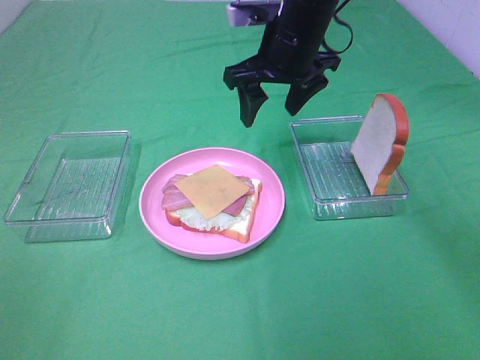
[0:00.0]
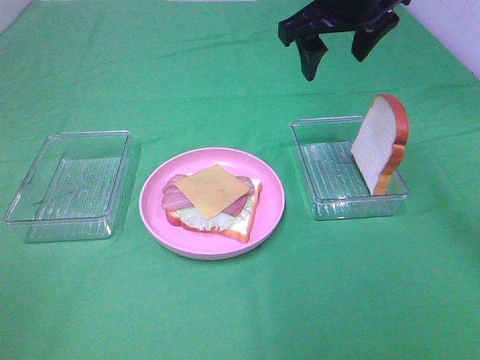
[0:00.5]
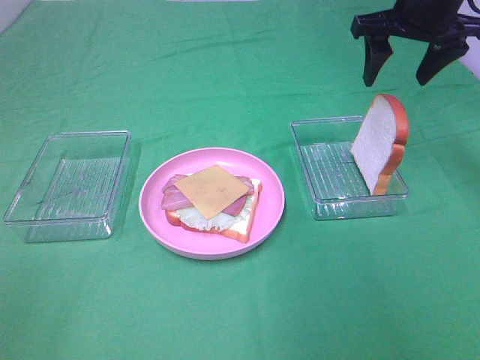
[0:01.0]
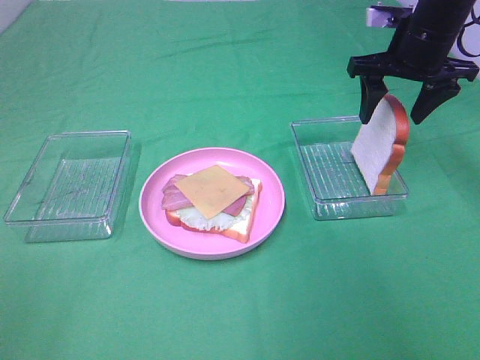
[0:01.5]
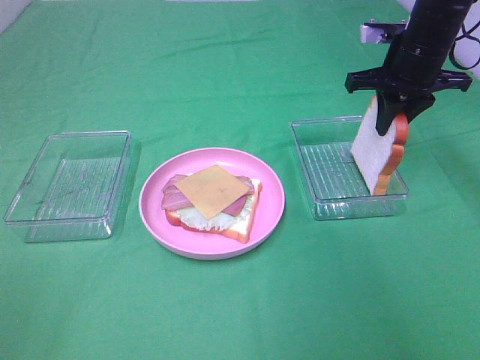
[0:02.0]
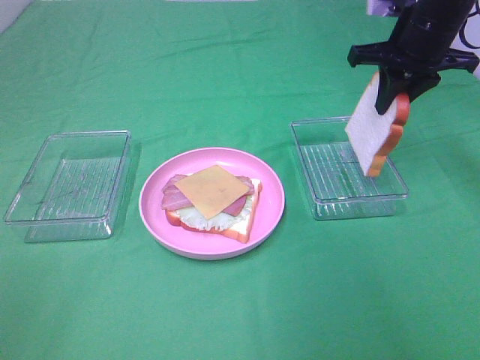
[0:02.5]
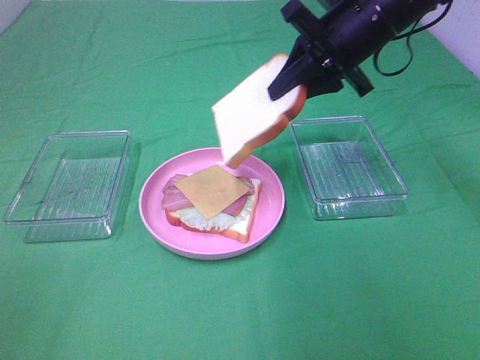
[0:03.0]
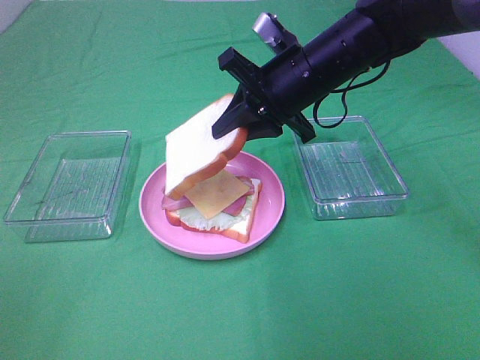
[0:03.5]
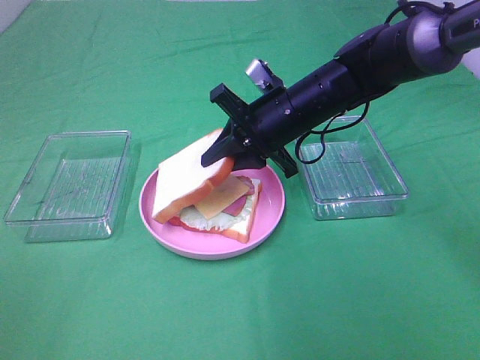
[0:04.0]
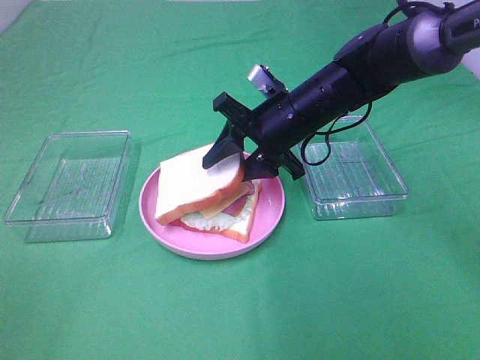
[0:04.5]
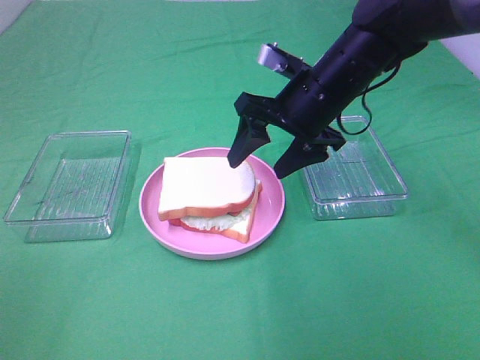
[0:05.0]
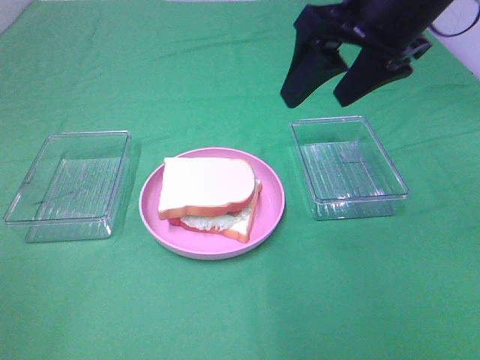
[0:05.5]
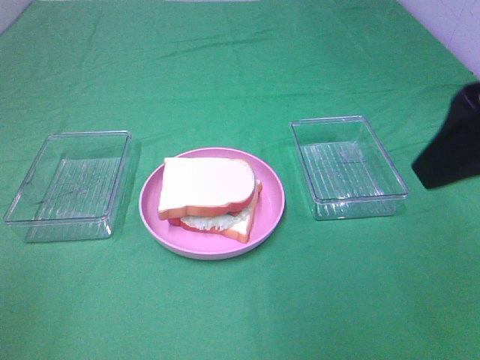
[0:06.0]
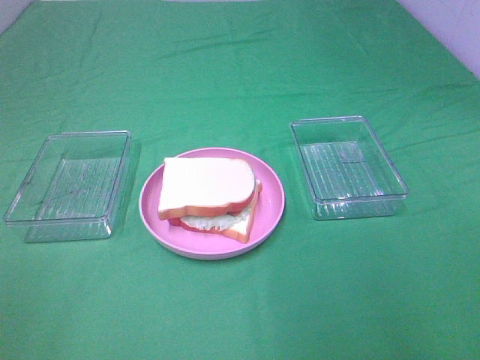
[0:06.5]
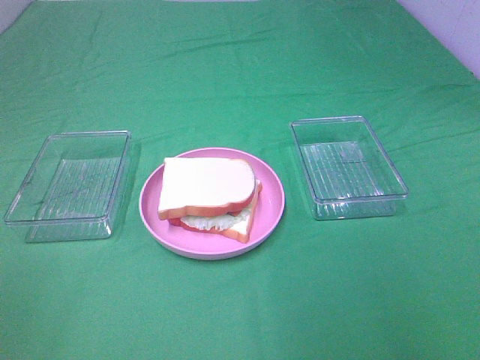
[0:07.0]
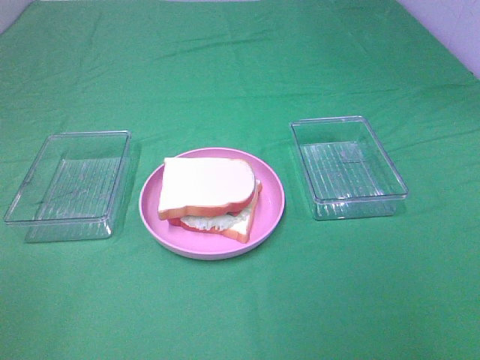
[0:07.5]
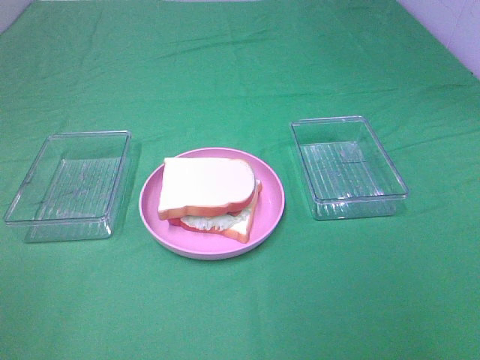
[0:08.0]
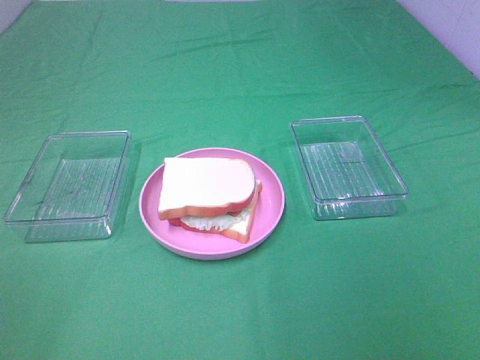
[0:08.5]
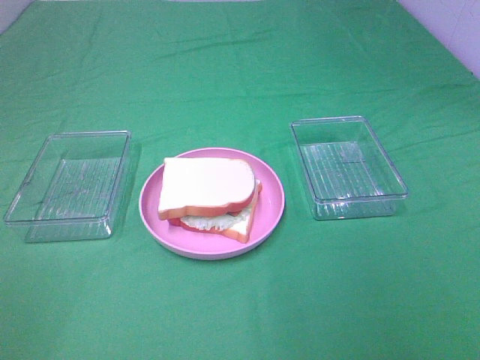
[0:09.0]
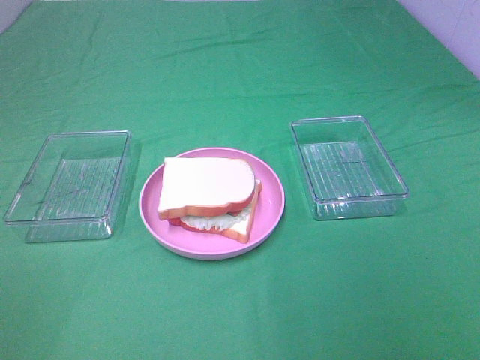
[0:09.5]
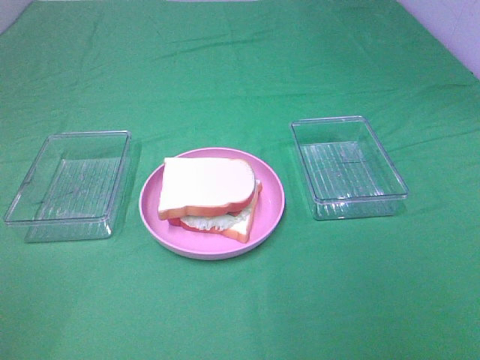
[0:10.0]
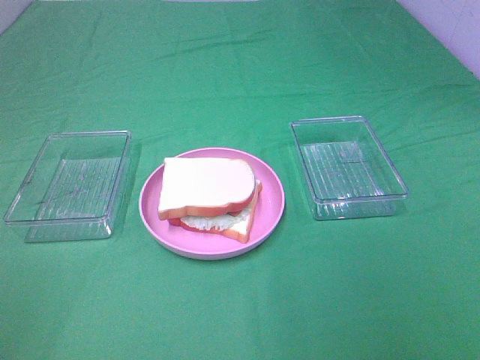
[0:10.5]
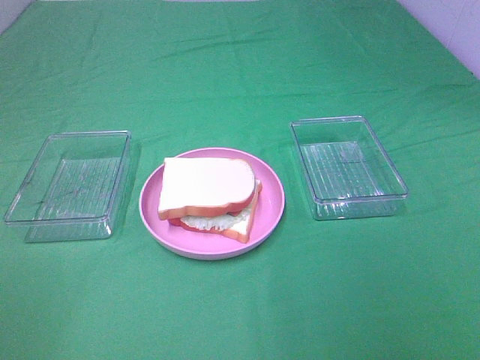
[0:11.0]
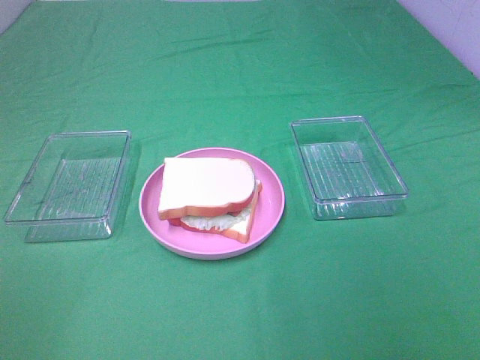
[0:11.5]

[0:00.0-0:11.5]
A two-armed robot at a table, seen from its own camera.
Task of the whole recording: Make sandwiches.
Step, 0:00.0 to 0:02.0: Right hand:grab the bread slice.
Step, 0:02.5 to 0:05.0: Right hand:place the bread slice on the cheese slice.
0:00.0 to 0:02.0: The right gripper moves to the right, approximately 15 cm, and closes up.
0:02.0 to 0:04.0: The right gripper travels to the left, downward and backward by some 15 cm.
0:04.0 to 0:06.0: The right gripper travels backward, upward and to the right by approximately 30 cm, and opens its fingers.
0:06.0 to 0:07.5: The right gripper heads backward and to the right, covering some 15 cm.
0:09.5 to 0:11.5: Both grippers stay about where they are.

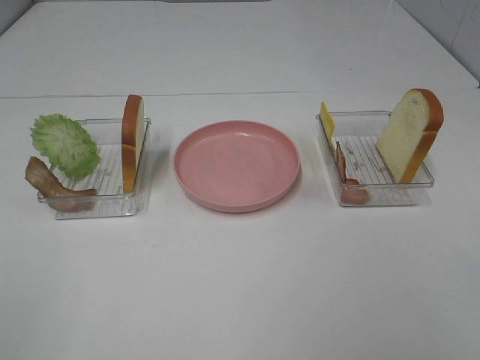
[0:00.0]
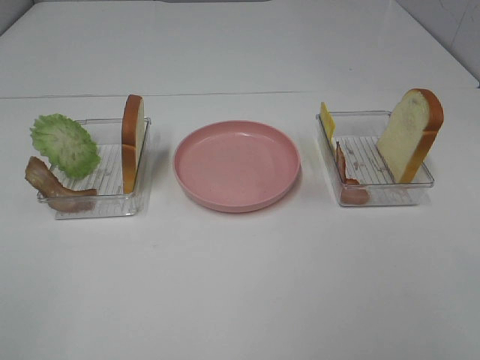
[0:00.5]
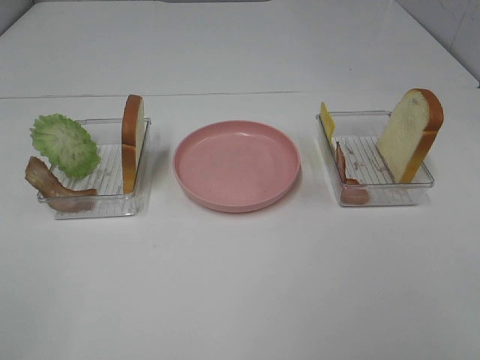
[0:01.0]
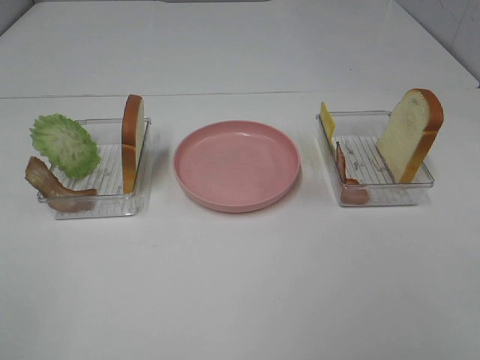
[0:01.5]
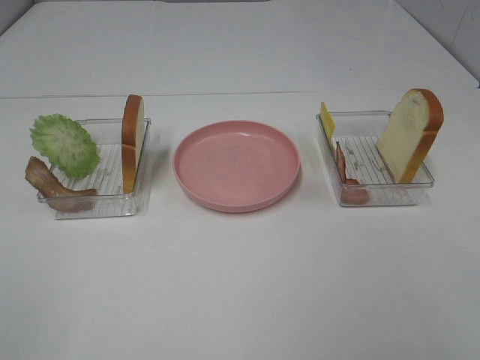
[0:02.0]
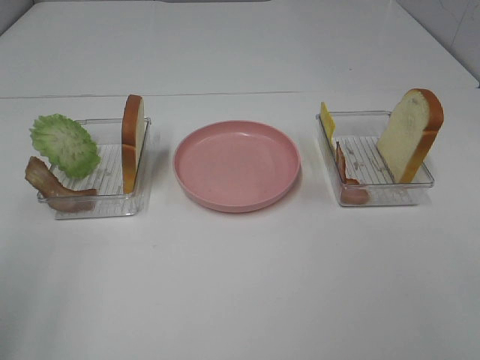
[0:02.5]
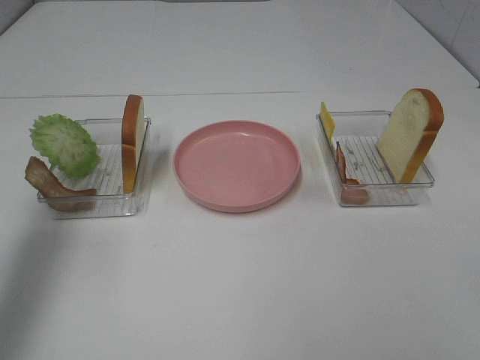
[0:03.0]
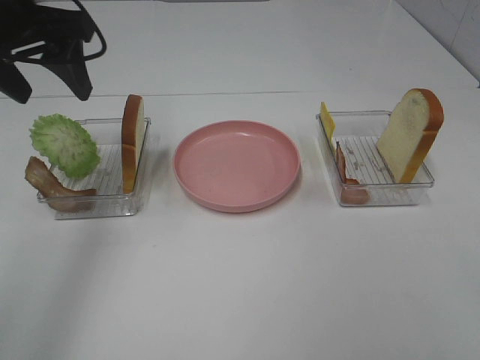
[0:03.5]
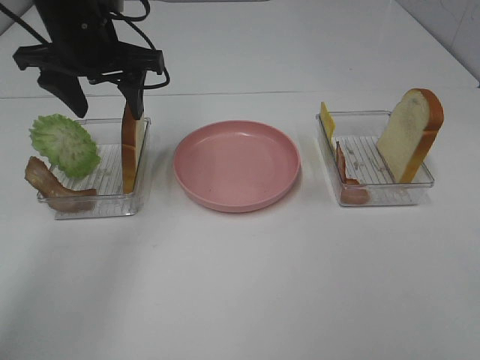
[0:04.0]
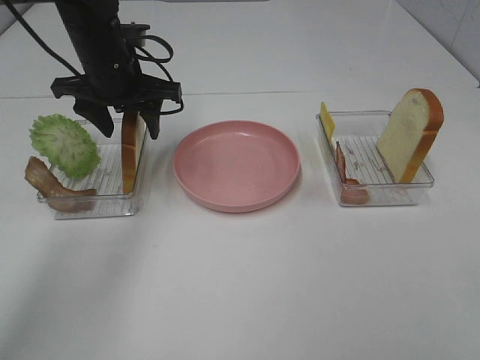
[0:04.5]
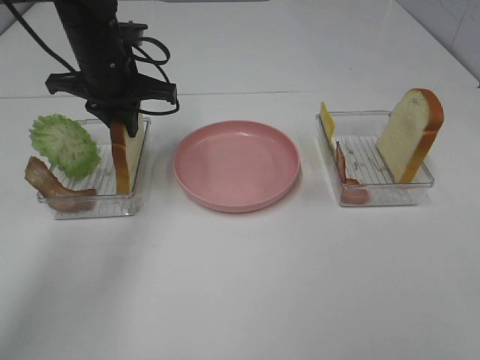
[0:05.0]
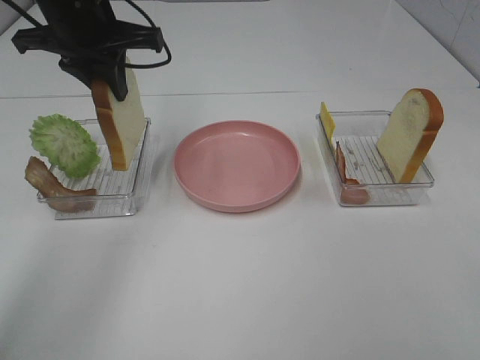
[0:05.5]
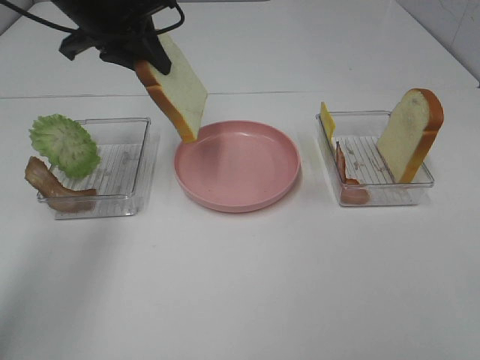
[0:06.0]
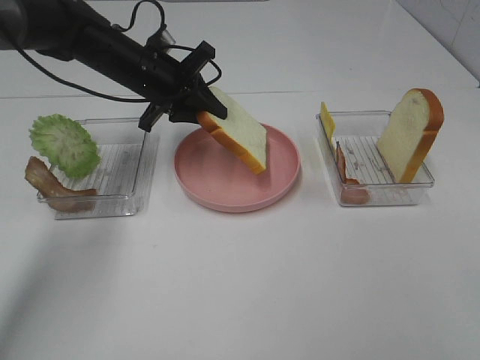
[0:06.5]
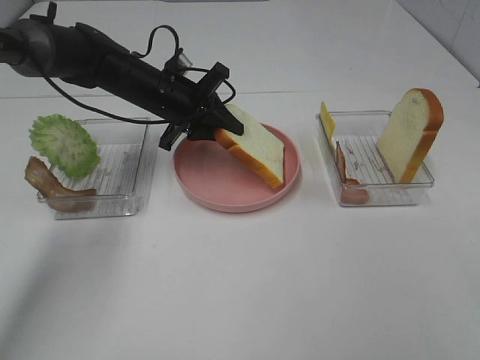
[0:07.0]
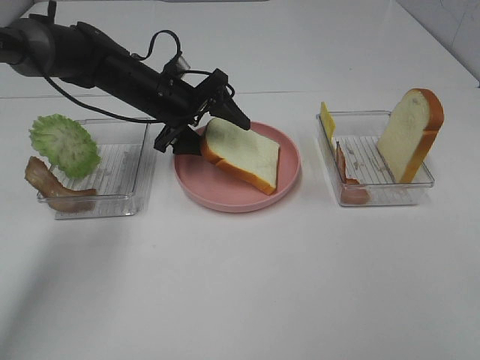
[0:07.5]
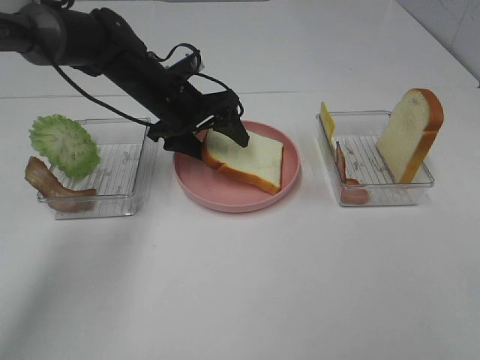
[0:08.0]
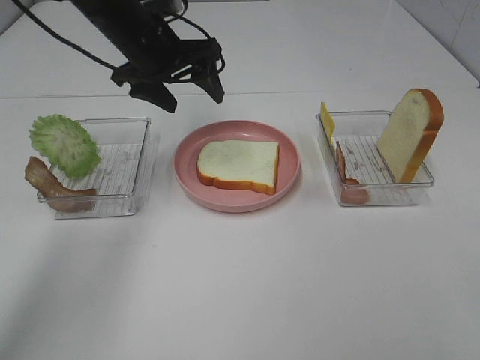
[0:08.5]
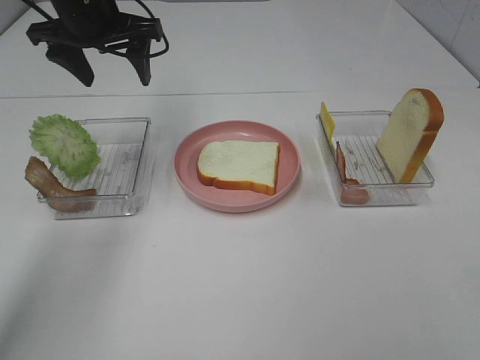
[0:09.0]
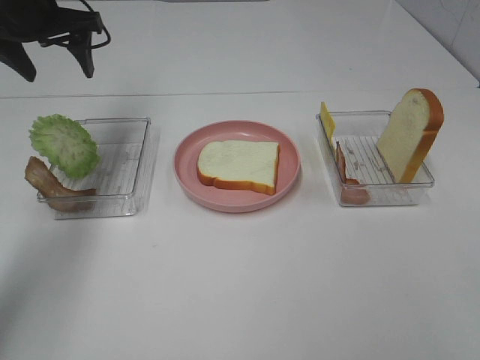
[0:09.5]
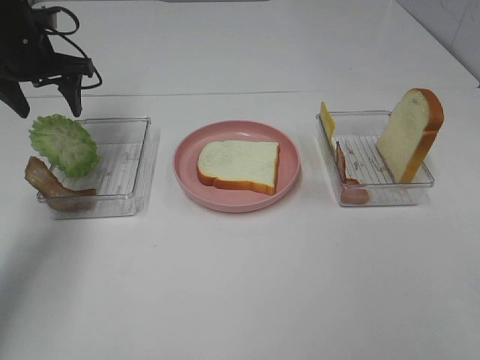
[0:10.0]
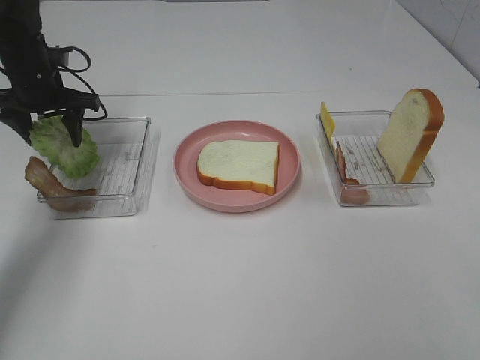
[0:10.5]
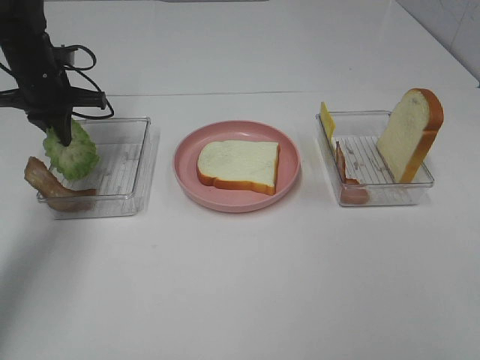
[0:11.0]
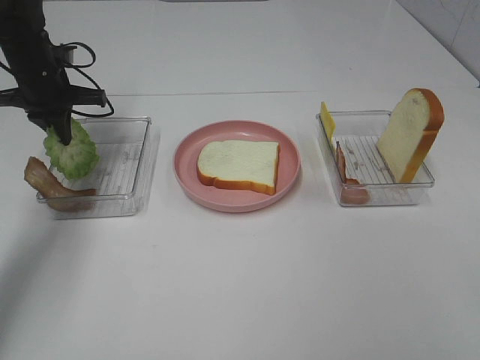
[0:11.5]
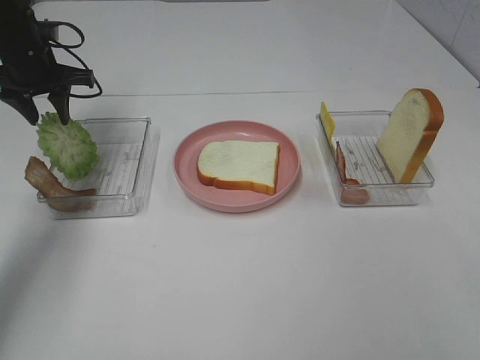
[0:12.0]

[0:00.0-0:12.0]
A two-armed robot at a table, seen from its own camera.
Task of the whole recording: Make sandwiches.
Step, 0:00.0 to 0:04.5: Left hand:grab the bread slice.
Step, 0:05.0 to 0:08.0: Left hand:place the bread slice on the plate.
Step, 0:08.5 to 0:11.5: Left hand:grab the lettuce slice.
0:00.0 to 0:02.0: Both grippers stay about where they are.
0:02.0 to 0:04.0: The left gripper heads forward, covering about 40 cm.
0:04.0 to 0:06.0: The left gripper travels downward and back again, approximately 5 cm each way, and closes up.
0:06.0 to 0:08.0: The left gripper goes some 15 cm downward and to the right, and opens.
0:08.0 to 0:10.0: The left gripper shifts about 20 cm to the left.
0:10.0 to 0:12.0: The left gripper closes, then reopens.

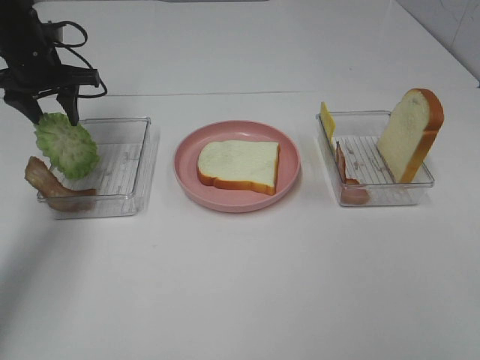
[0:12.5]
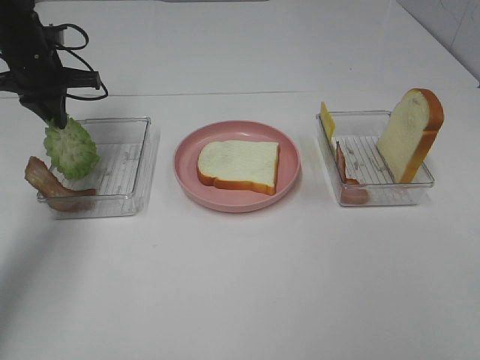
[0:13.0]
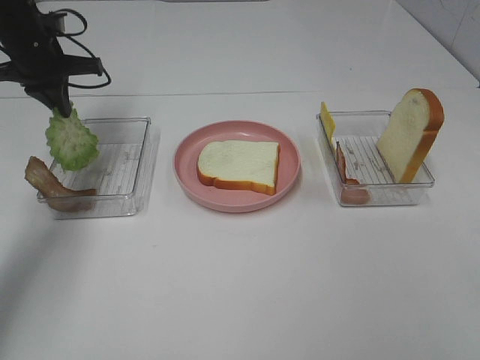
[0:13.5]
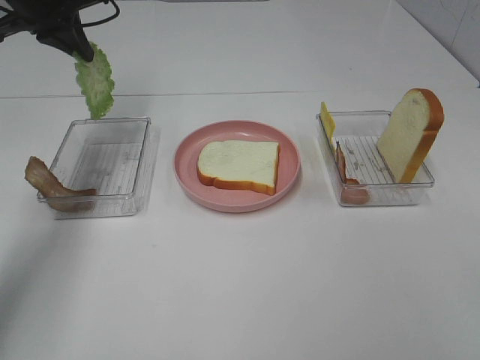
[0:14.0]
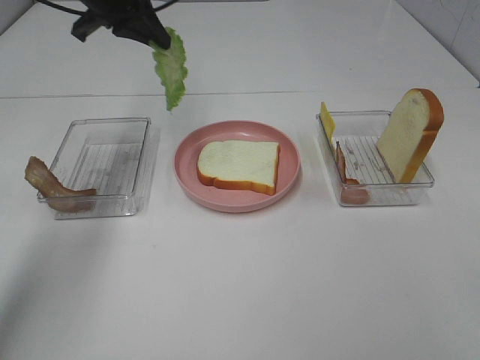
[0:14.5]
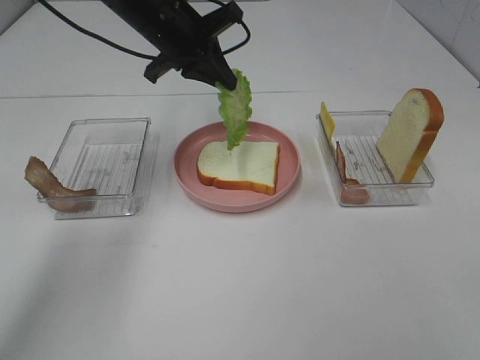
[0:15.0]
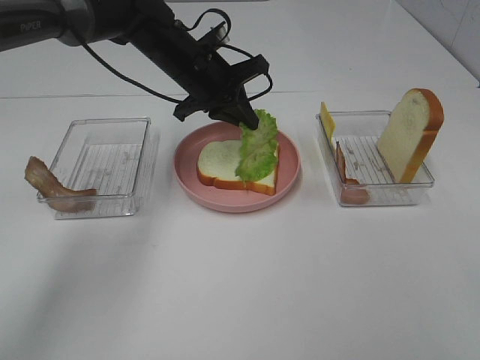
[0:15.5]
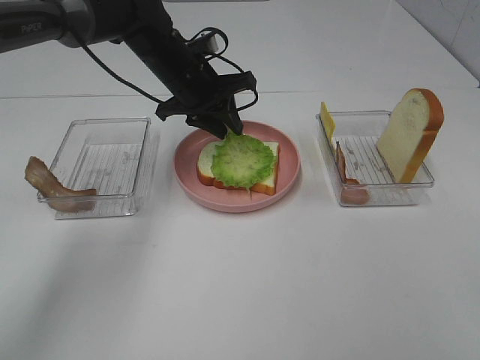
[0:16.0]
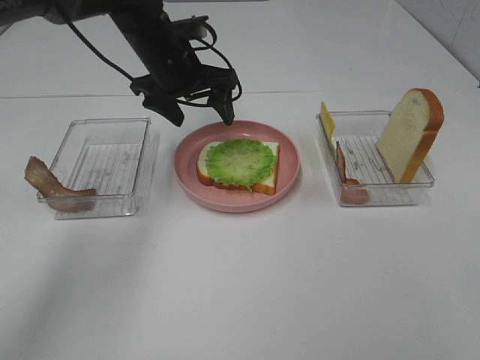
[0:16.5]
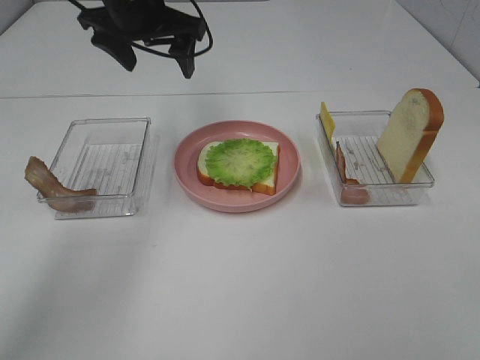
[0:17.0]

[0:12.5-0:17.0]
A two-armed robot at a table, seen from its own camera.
Task of the whole recording: Make sandwiches.
Step, 0:12.5 to 0:16.5: Left hand:place the lettuce slice on the bread slice.
0:12.5 to 0:14.5: The left gripper is displaced to the right and upward by approximately 15 cm, and closes up.
0:14.5 to 0:17.0: The left gripper travels downward and back again, approximately 10 cm each way, and opens.
